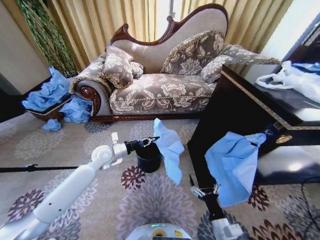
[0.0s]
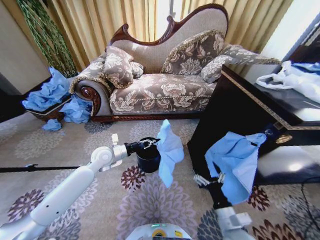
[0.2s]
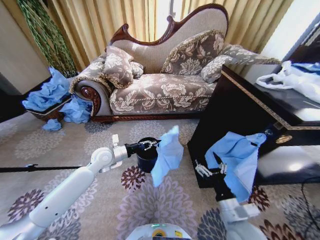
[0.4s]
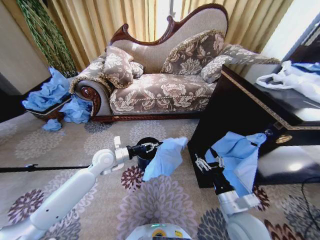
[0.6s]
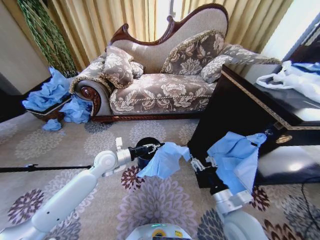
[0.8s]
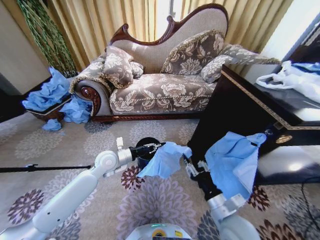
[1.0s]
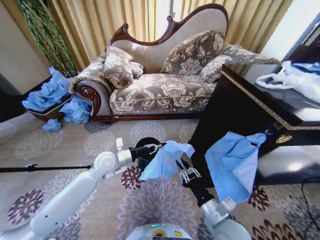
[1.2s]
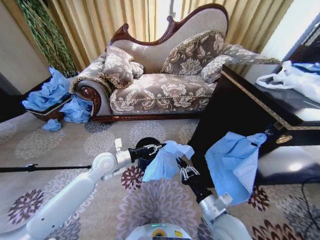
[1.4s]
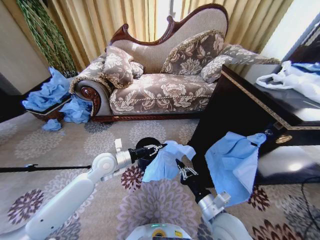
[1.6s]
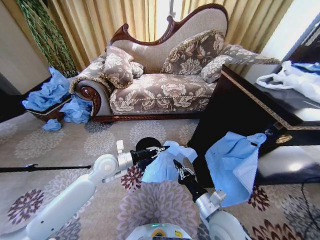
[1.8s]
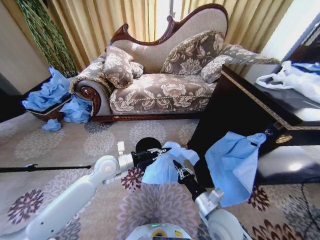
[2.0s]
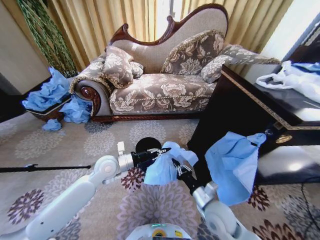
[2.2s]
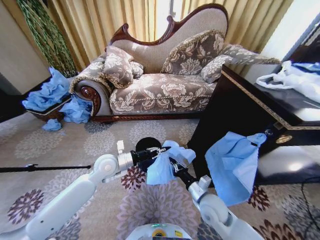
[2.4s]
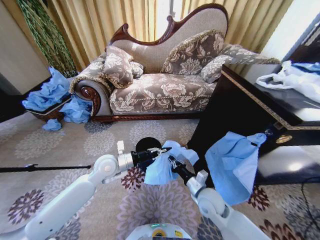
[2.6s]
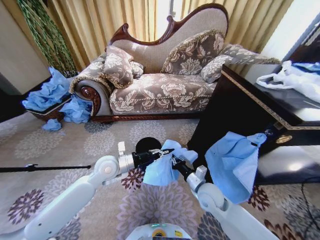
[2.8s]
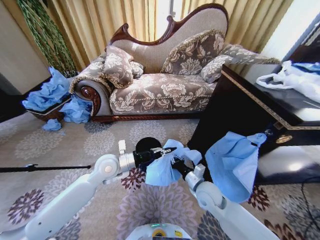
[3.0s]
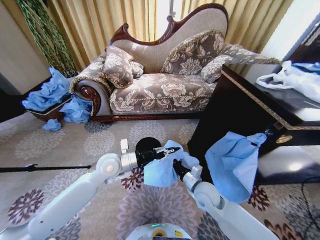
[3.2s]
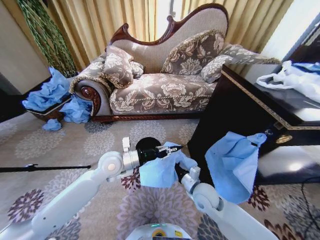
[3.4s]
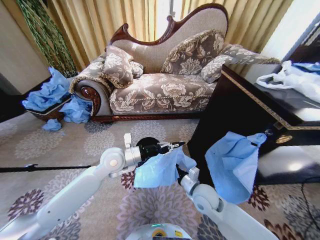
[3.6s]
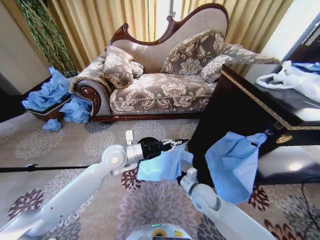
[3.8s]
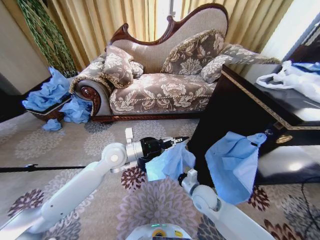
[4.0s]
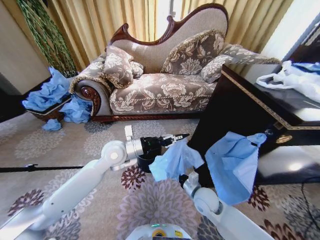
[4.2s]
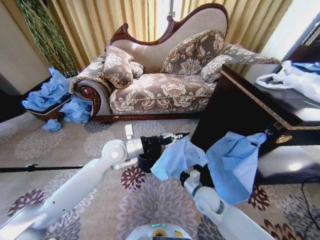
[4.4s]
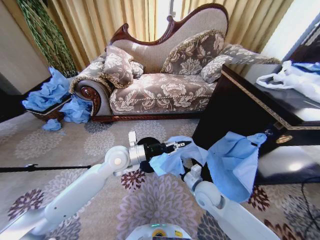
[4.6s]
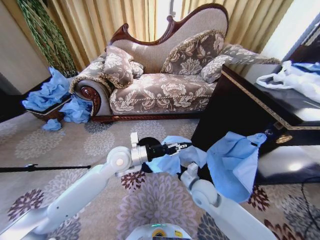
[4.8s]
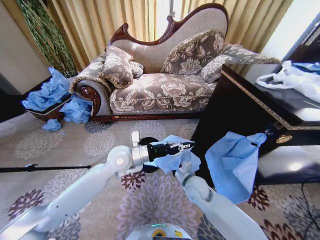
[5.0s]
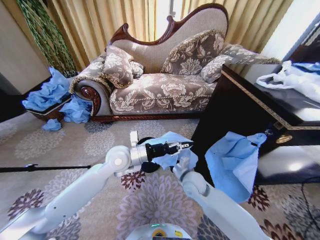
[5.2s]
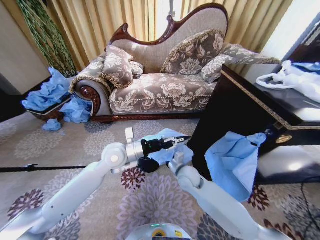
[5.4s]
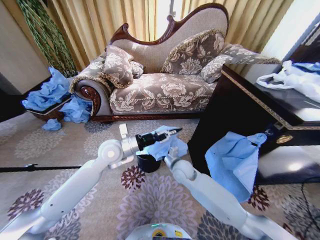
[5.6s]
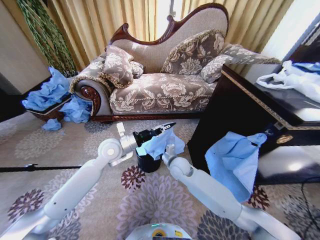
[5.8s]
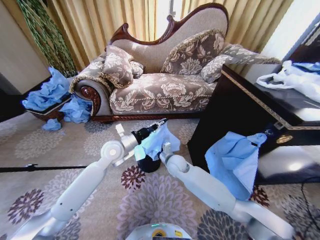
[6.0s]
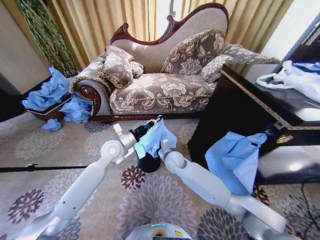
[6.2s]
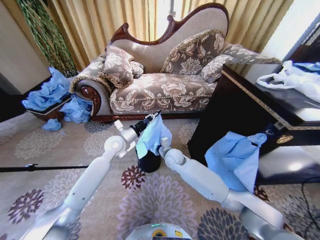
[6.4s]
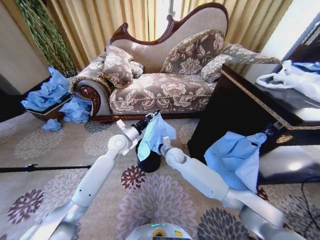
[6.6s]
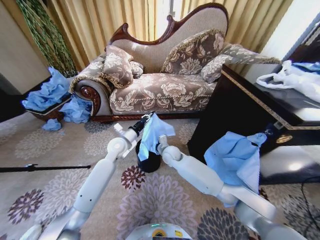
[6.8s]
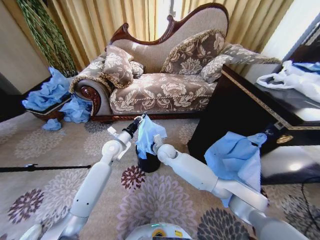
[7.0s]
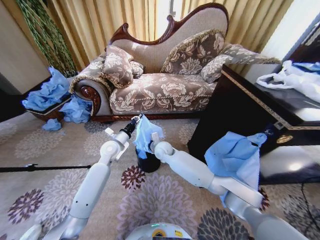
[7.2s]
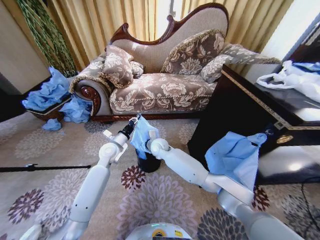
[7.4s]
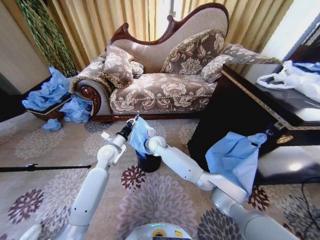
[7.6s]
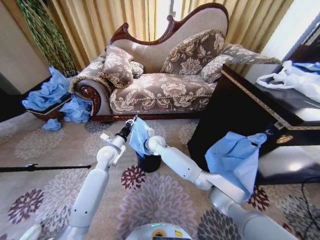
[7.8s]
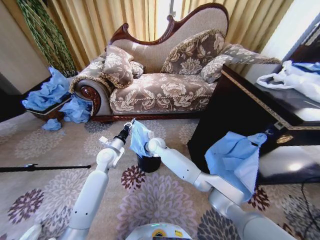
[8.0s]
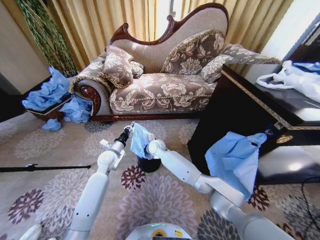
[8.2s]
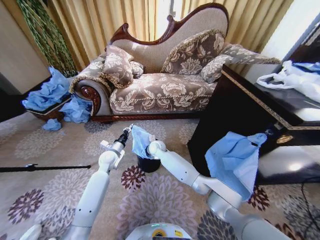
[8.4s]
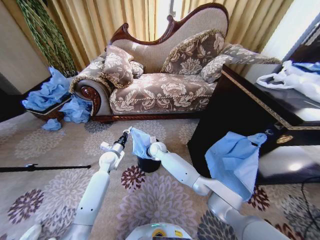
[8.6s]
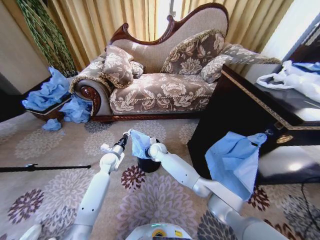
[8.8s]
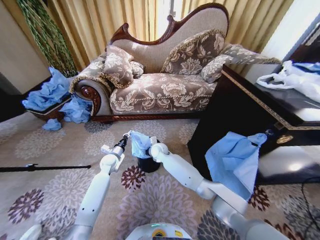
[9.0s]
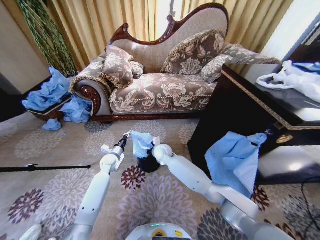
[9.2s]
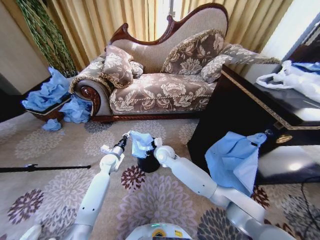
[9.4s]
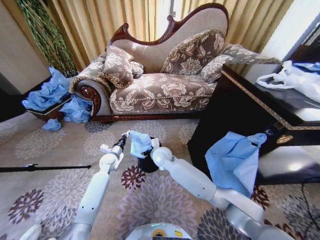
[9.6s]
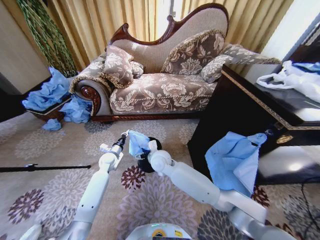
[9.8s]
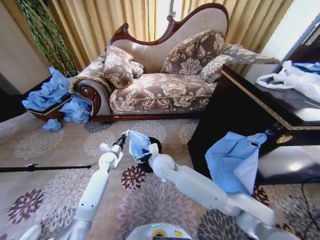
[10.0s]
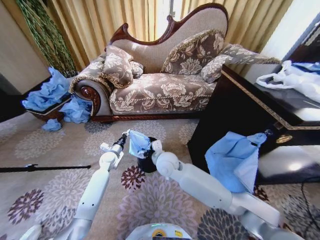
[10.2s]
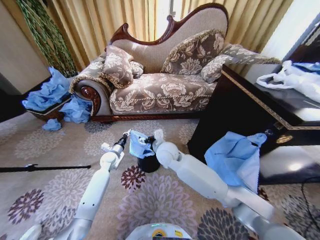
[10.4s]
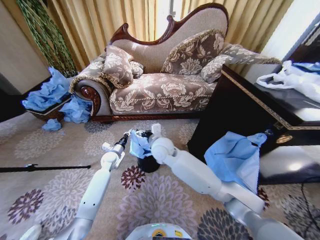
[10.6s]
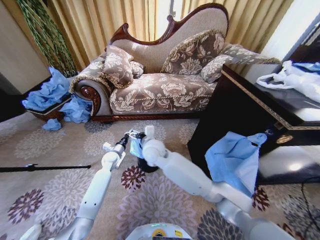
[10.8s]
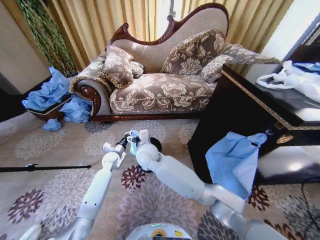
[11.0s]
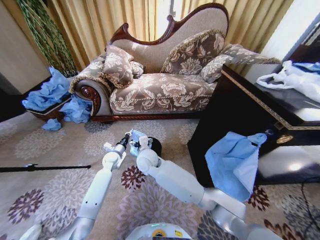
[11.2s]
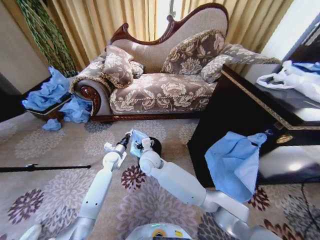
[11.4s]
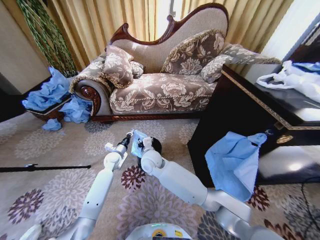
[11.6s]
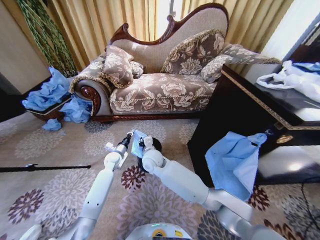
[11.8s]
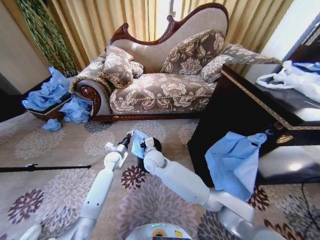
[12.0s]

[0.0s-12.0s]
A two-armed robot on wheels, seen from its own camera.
Task of the whole recording: Place a garbage bag over the trash bin.
0.0s to 1.6s: The left gripper changes place by about 5 cm. The right gripper moves upward and forward, about 10 cm, and closes up.
1.6s to 3.0s: The right gripper moves forward, some 10 cm.
3.0s to 4.4s: The left gripper travels upward by approximately 5 cm.
4.4s to 6.0s: The right gripper goes roughly 15 cm forward and to the left.
6.0s to 7.6s: The left gripper travels downward by some 5 cm; the right gripper shifts approximately 15 cm to the left and forward.
7.6s to 9.0s: The left gripper shifts approximately 10 cm downward.
9.0s to 10.4s: The right gripper travels upward and backward by some 15 cm, and opens up.
10.4s to 12.0s: The right gripper goes about 10 cm to the left and downward, and closes its fingers.

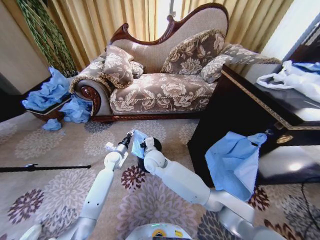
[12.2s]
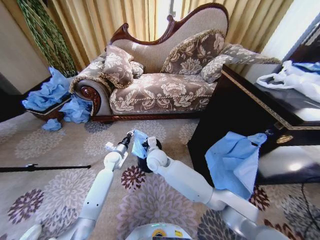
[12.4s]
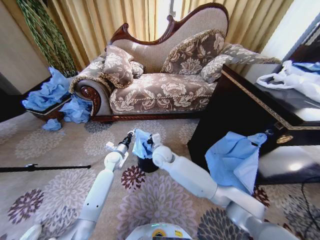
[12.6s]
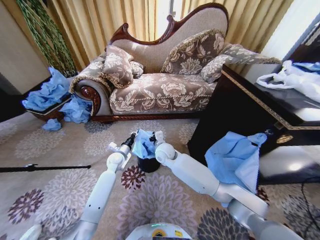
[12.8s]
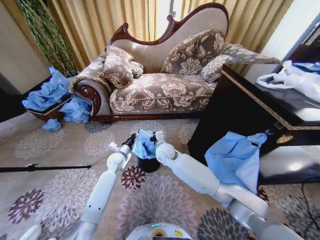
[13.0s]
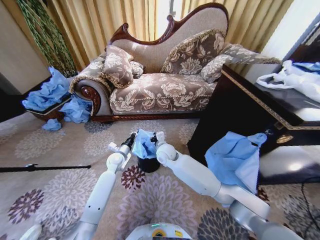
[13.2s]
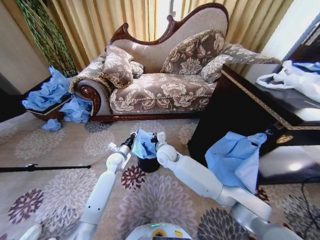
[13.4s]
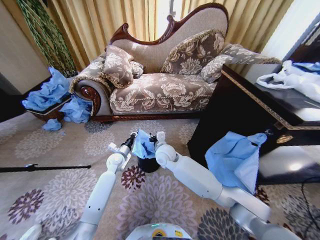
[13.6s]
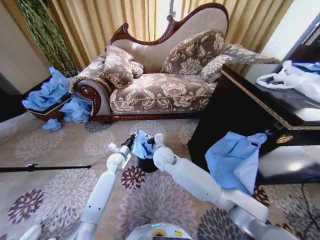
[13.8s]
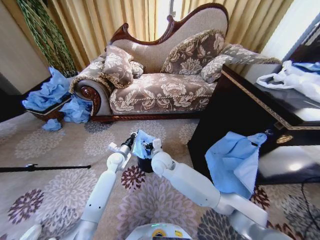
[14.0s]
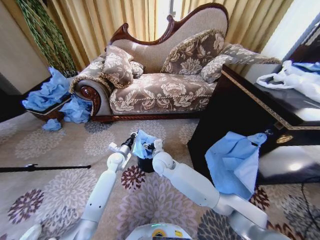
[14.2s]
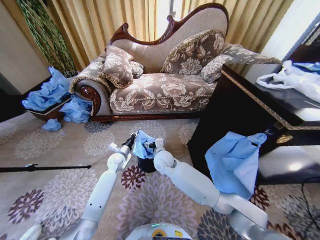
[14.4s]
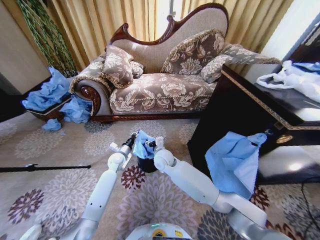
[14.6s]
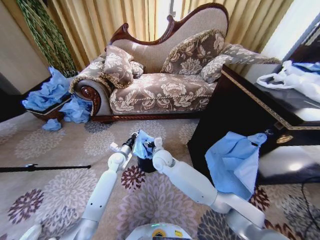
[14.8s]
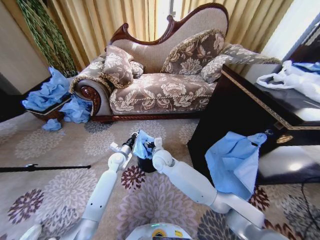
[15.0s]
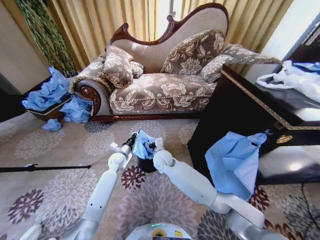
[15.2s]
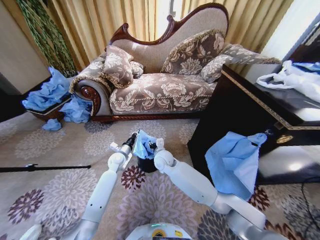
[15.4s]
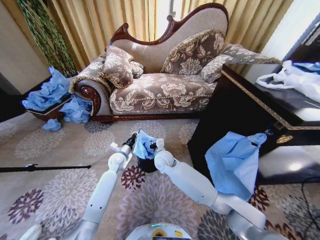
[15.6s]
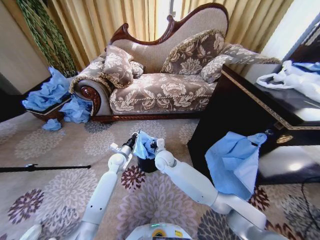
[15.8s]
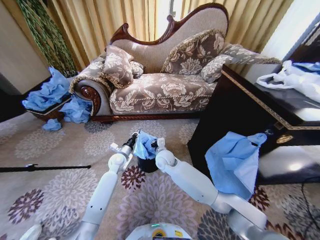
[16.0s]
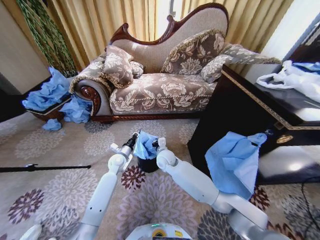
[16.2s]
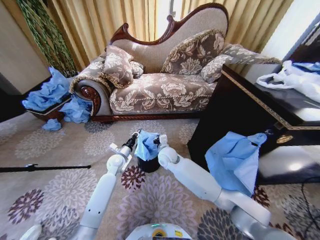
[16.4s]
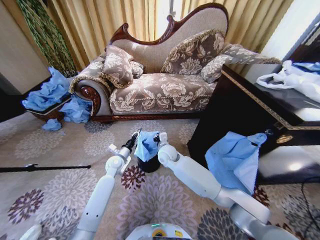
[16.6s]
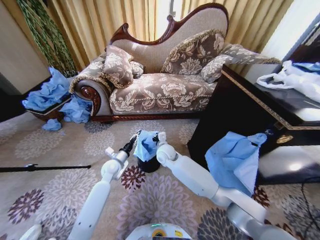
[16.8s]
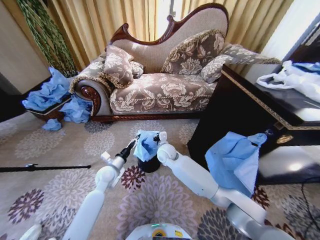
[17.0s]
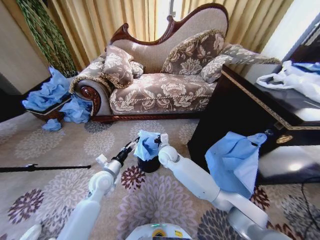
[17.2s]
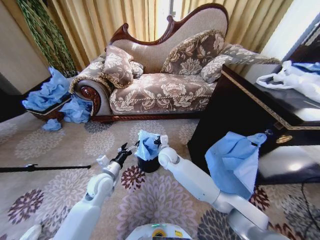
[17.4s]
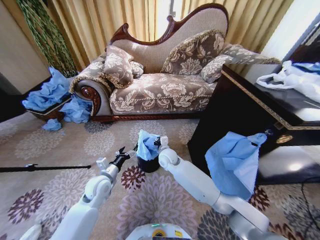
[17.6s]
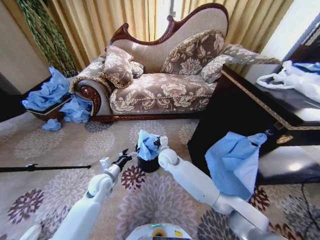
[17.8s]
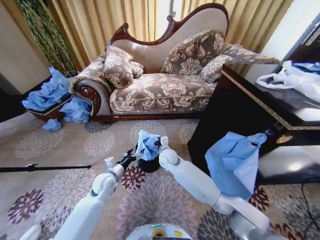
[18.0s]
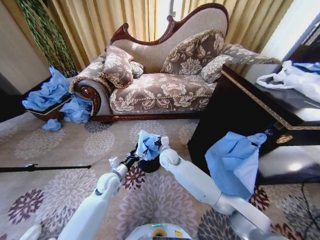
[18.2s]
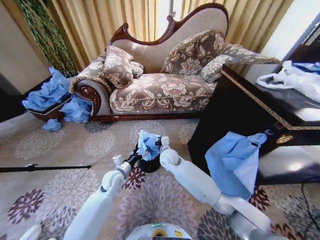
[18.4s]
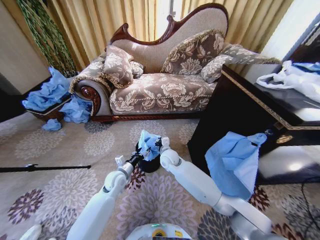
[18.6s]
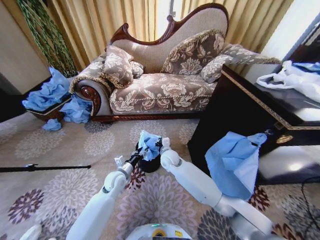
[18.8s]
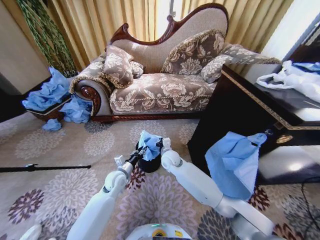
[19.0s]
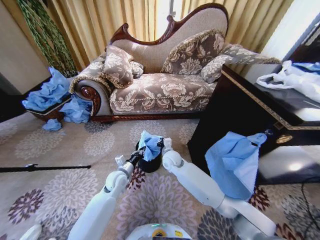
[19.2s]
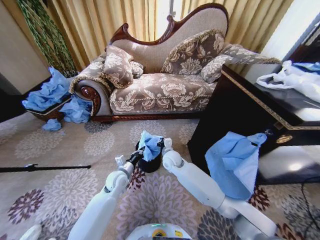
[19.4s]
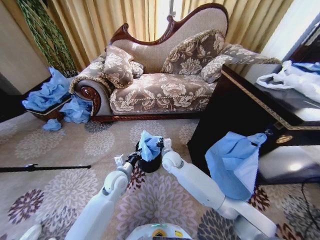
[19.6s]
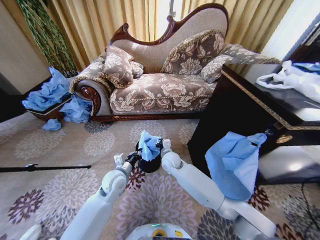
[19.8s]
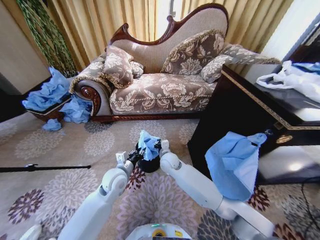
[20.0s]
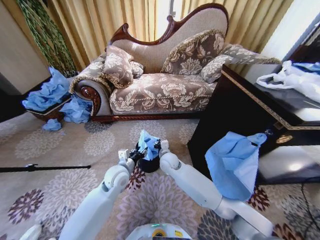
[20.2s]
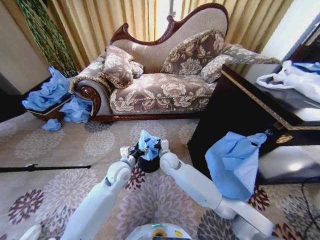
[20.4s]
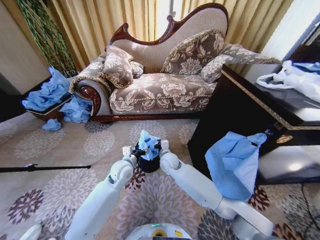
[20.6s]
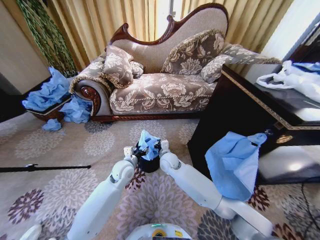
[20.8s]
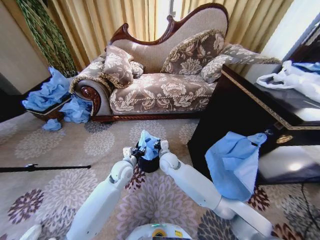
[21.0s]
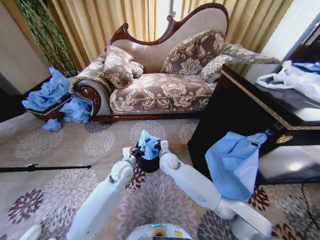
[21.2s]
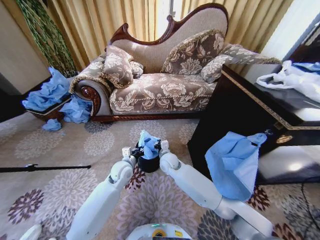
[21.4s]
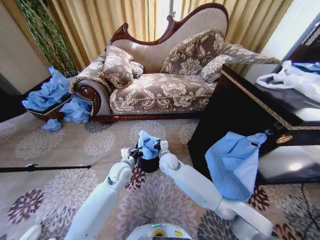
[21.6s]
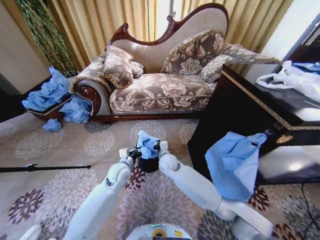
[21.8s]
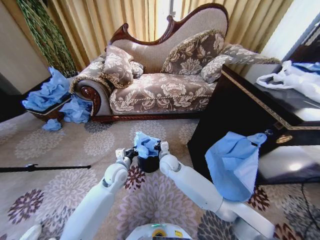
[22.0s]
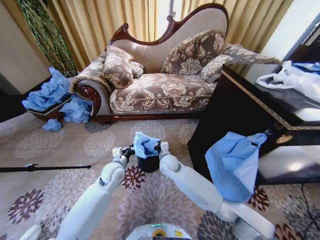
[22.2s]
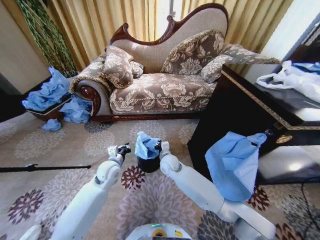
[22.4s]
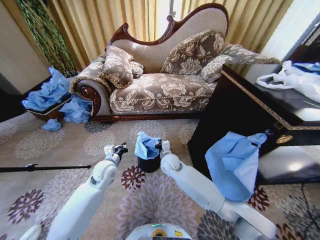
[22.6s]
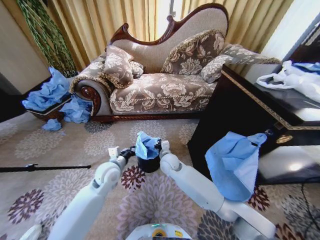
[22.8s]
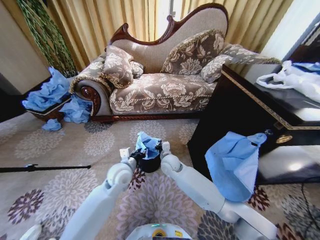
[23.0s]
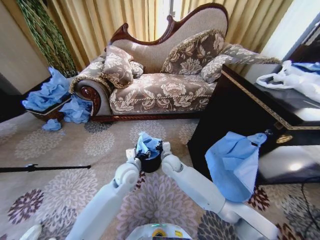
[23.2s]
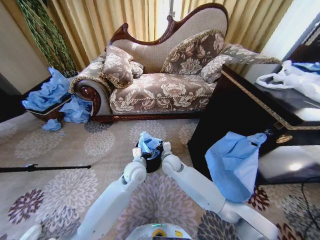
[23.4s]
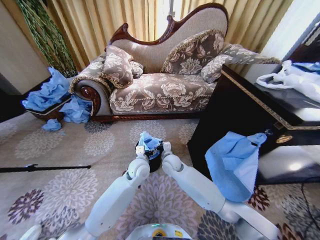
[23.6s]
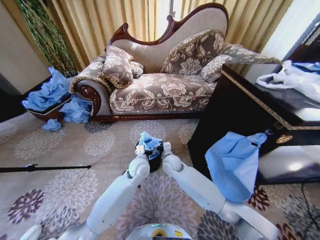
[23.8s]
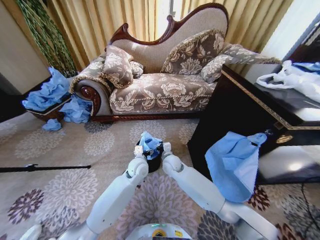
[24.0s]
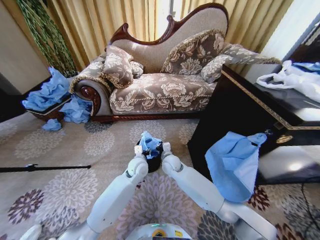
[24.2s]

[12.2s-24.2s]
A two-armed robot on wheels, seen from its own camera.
Task of the whole recording: Place a garbage bag over the trash bin.
12.2s to 13.8s: The right gripper opens its fingers.
13.8s to 15.2s: The grippers stay close to where they were, moving slightly.
15.2s to 16.6s: The right gripper closes up.
16.6s to 18.2s: The left gripper is displaced backward by about 10 cm, and opens its fingers.
18.2s to 19.8s: The left gripper heads upward, covering some 5 cm, and closes its fingers.
19.8s to 21.2s: The left gripper travels forward by approximately 5 cm, and opens, then closes again.
21.2s to 22.6s: The left gripper moves to the left, about 5 cm.
22.6s to 24.2s: The left gripper moves to the right, some 15 cm, and opens its fingers.
